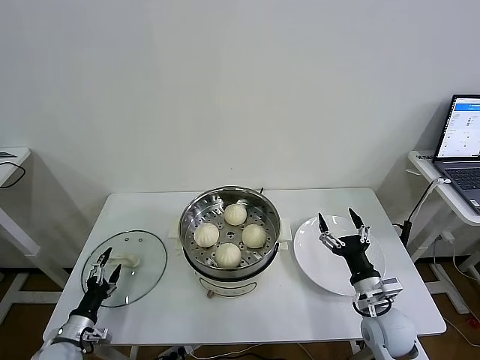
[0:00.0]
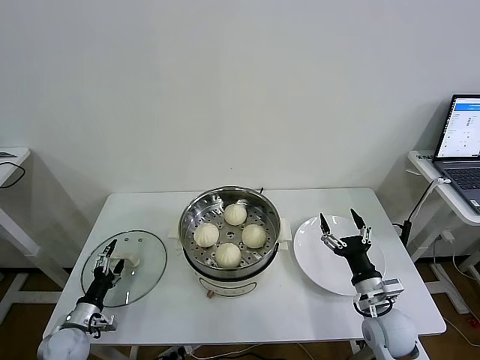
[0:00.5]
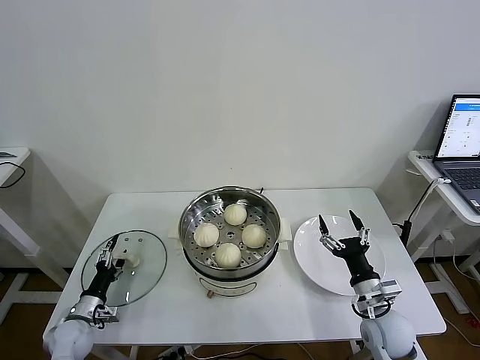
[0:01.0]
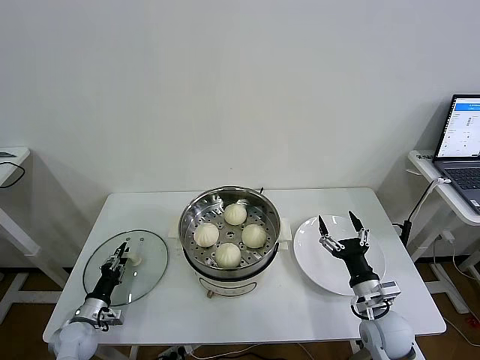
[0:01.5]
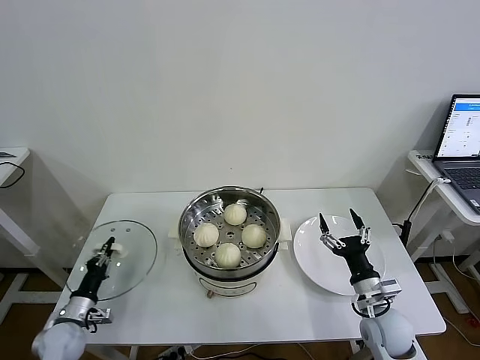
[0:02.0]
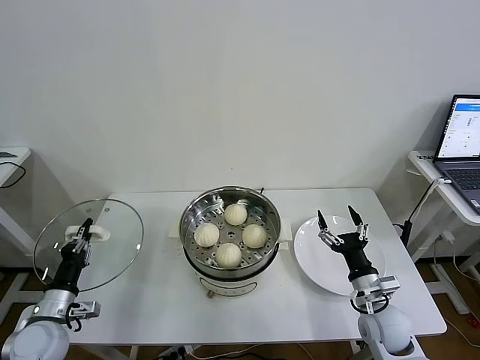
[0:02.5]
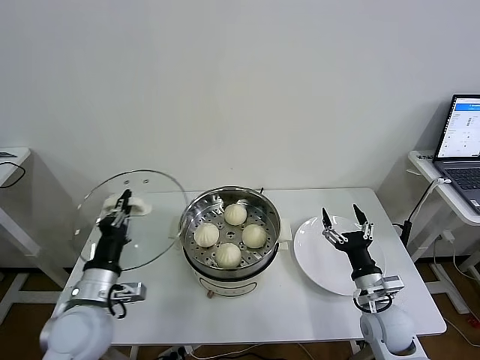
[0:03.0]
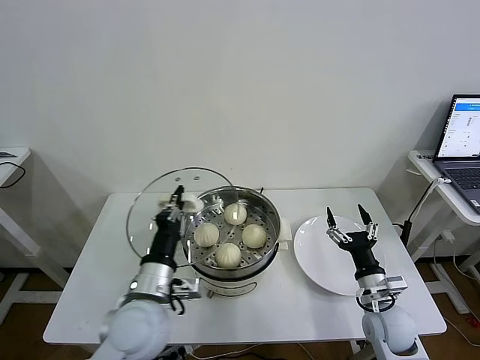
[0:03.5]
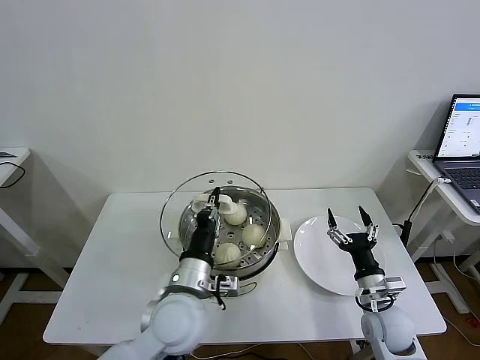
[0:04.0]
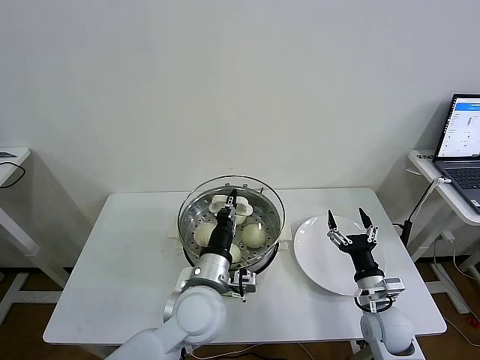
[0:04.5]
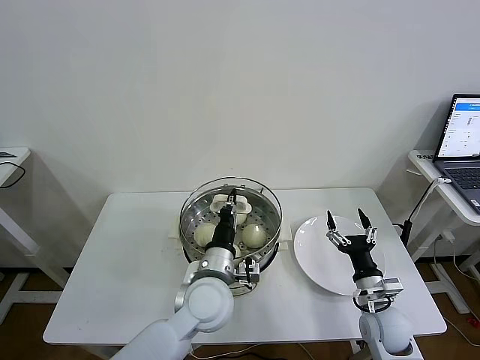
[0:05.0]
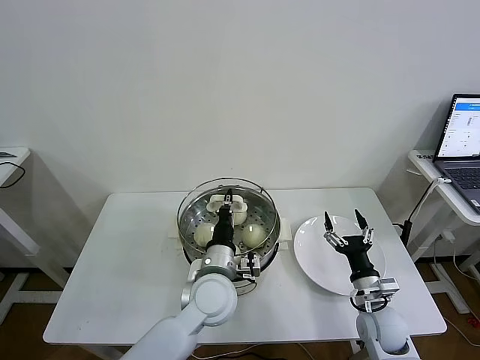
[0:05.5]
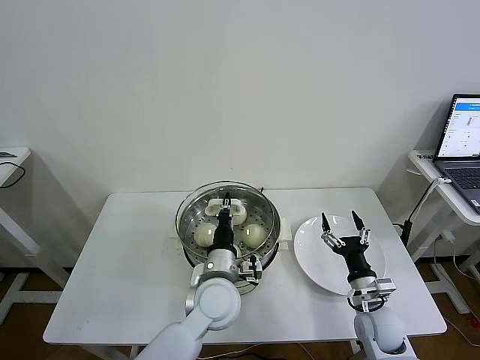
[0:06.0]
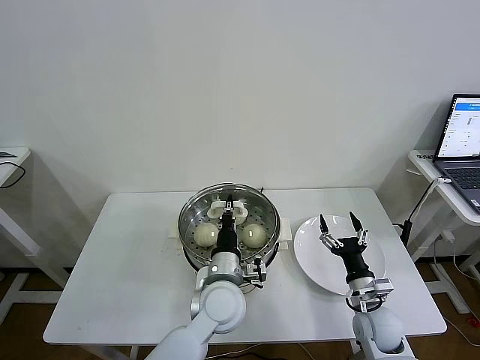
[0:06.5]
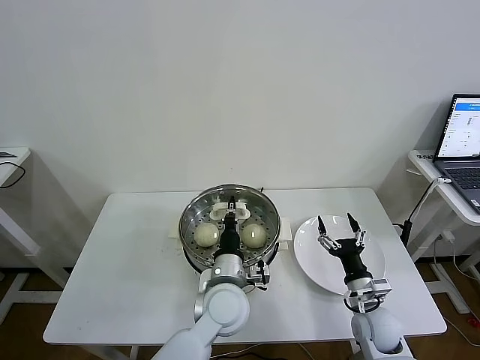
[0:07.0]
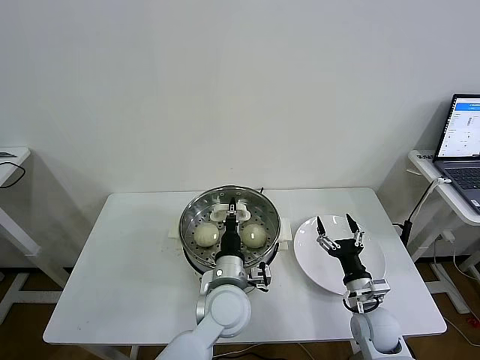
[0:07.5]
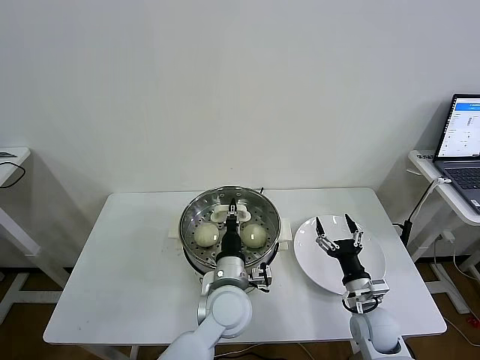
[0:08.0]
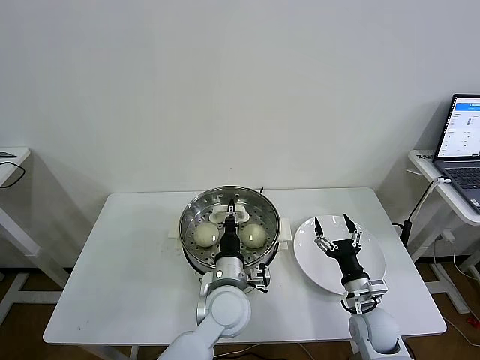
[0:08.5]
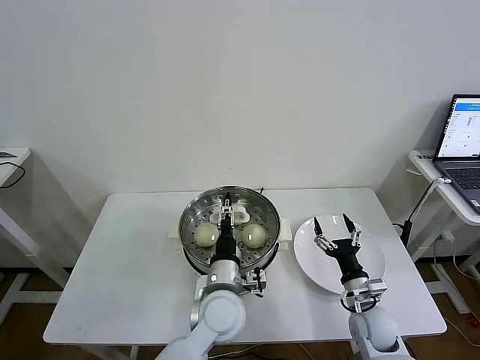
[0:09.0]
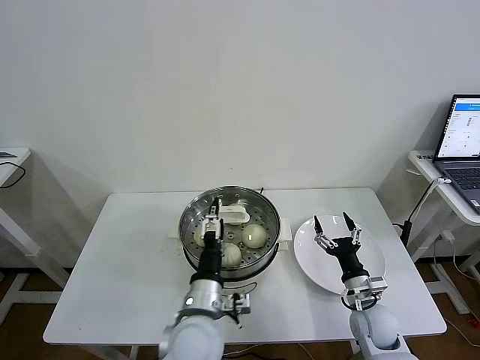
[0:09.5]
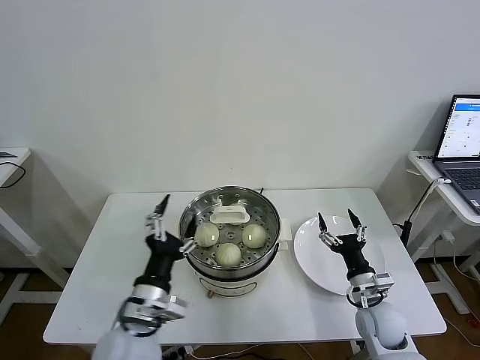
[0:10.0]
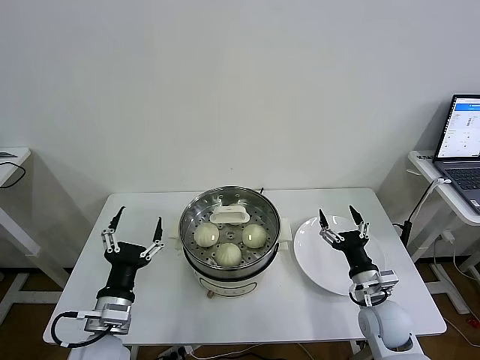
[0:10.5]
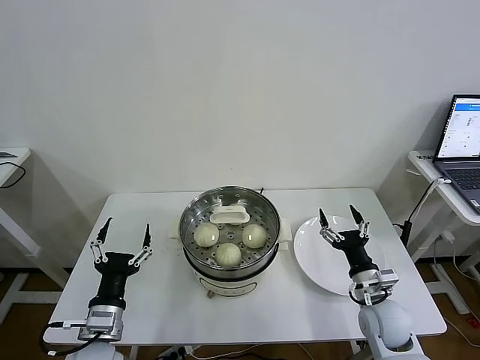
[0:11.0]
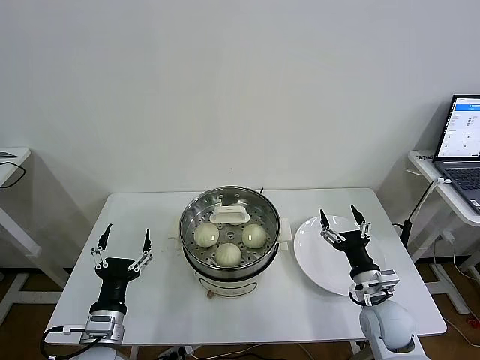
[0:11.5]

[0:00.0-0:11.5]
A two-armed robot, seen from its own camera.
Task of the whole recording: take steamed baozi put them in steamer then cover it.
Step, 0:02.0 to 0:09.0: Place the pot lid on the steamer with left gripper.
0:00.0 to 0:02.0: The left gripper closes its fingers.
0:02.0 to 0:04.0: The left gripper heads to the right and upward, covering approximately 35 cm.
0:04.0 to 0:06.0: The left gripper shifts about 10 cm to the right and forward.
0:06.0 to 0:07.5: The grippers stay close to where they were, moving slightly.
0:07.5 to 0:09.5: The left gripper goes roughly 5 cm backward, and opens up.
0:09.5 to 0:11.5: The left gripper is displaced to the left by some 20 cm. The right gripper heads upward, covering some 5 cm.
